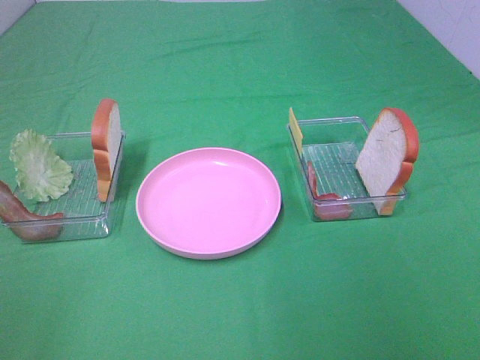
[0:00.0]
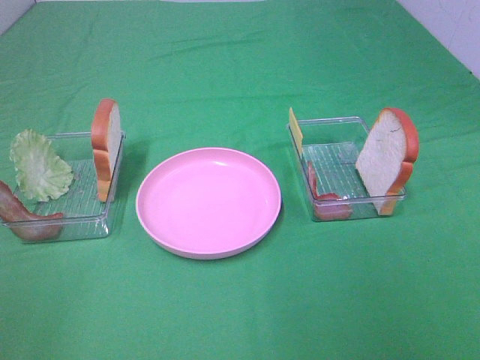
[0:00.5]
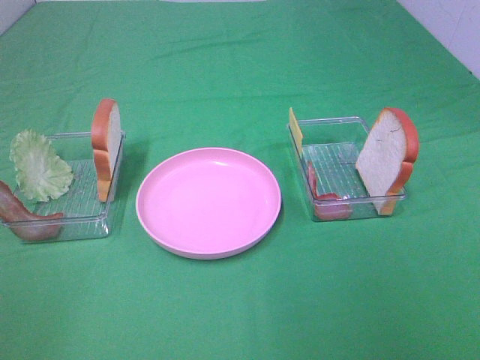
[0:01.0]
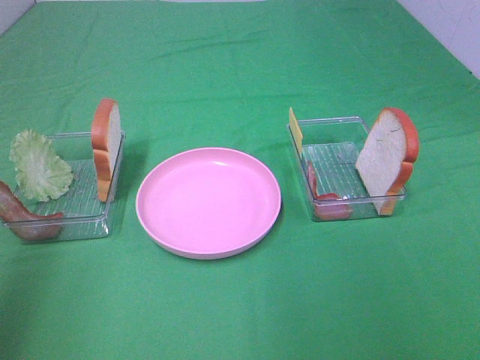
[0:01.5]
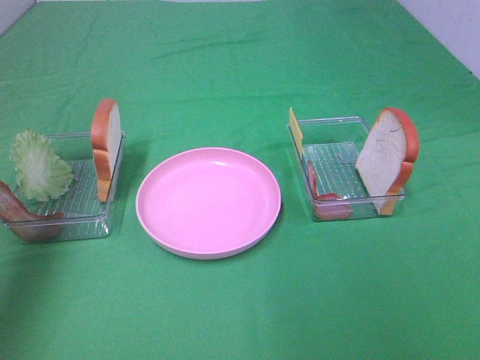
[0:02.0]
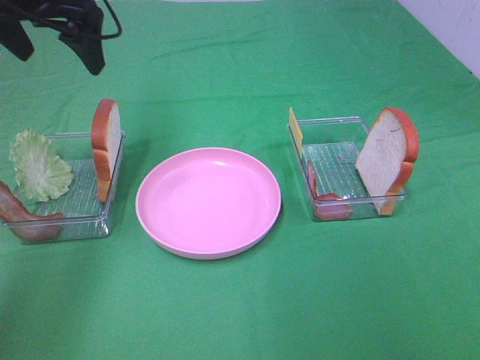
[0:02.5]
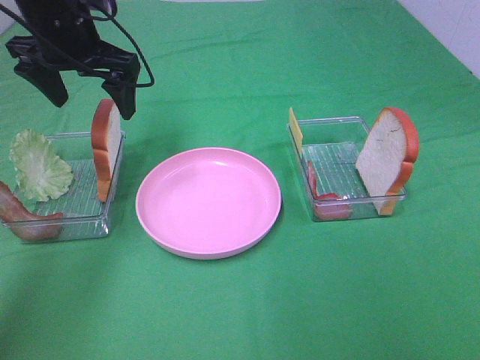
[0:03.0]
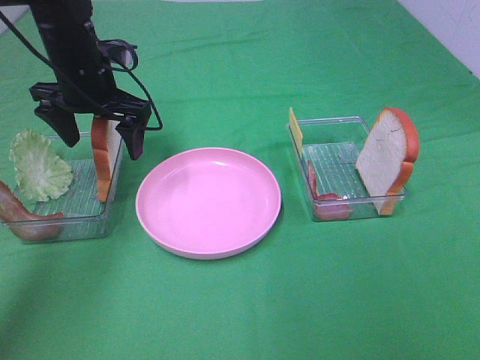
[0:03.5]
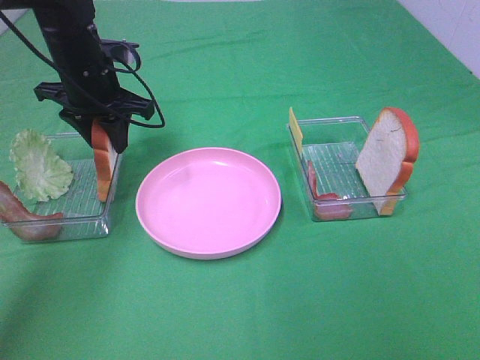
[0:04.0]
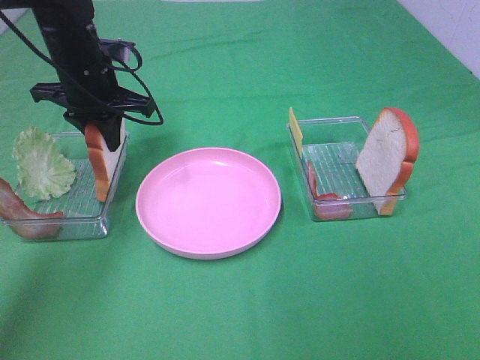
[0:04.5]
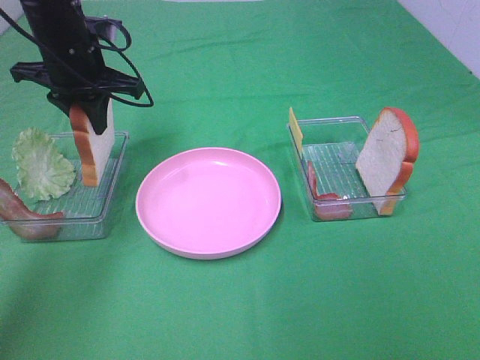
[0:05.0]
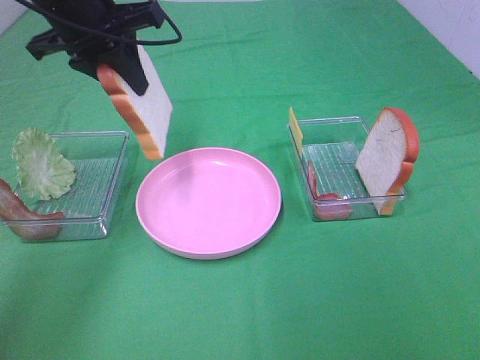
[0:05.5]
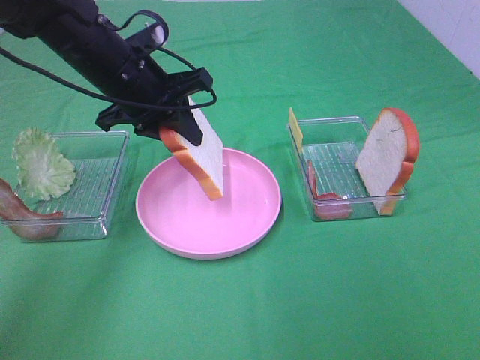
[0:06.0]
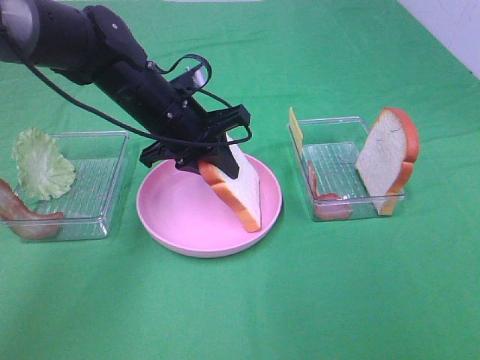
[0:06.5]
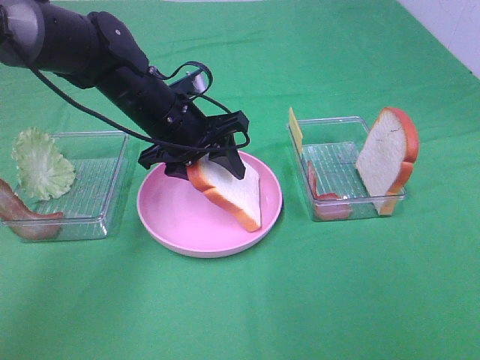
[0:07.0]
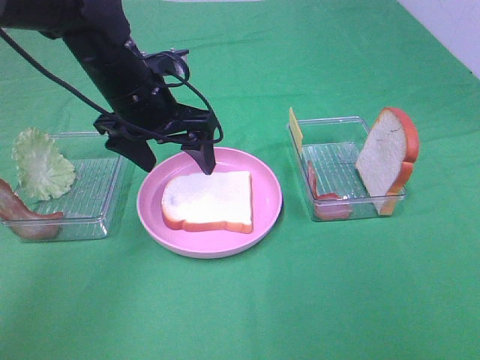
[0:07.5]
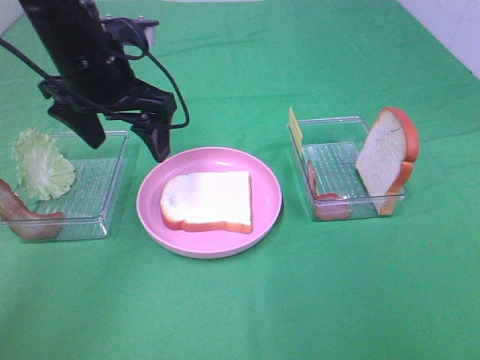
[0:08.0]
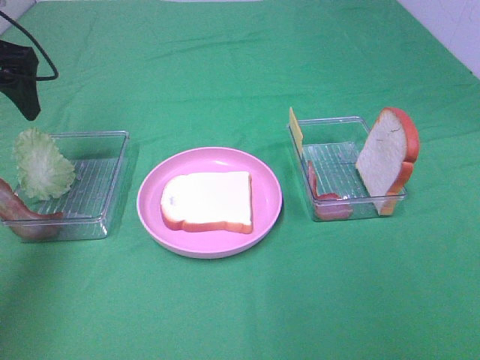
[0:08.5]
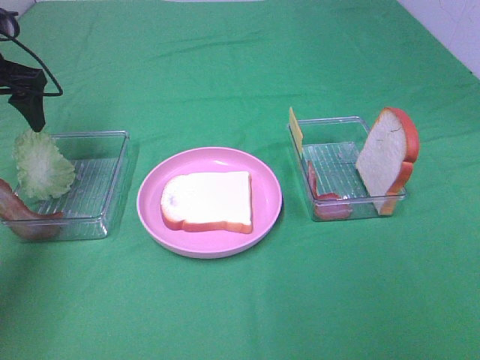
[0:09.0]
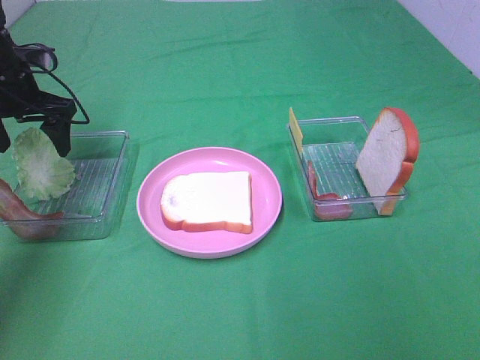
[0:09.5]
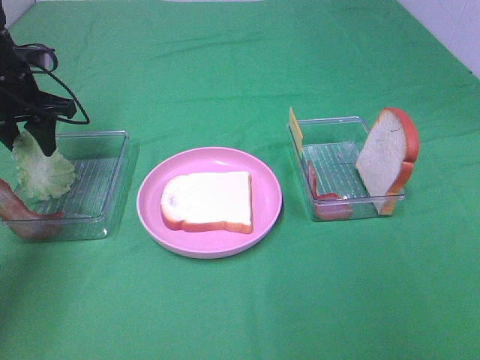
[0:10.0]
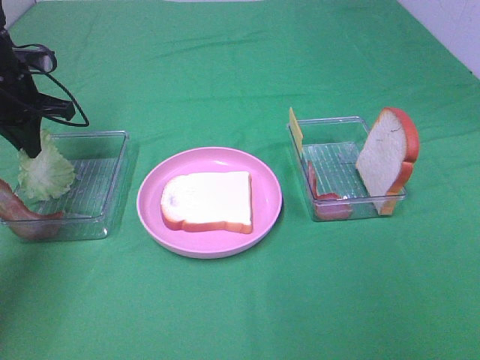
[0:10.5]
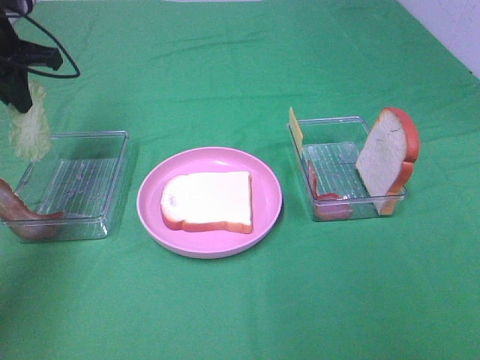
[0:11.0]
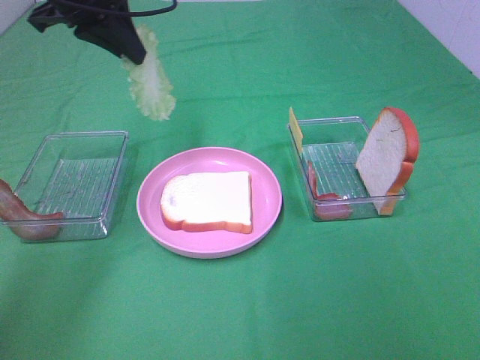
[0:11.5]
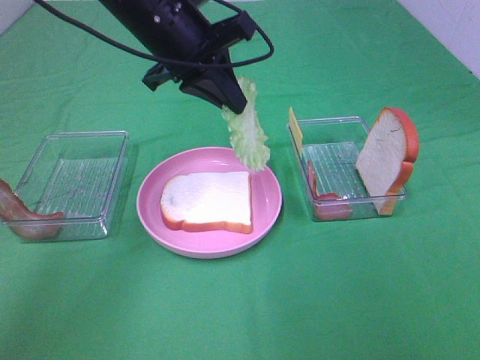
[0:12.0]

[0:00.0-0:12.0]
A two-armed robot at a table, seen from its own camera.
Task of the whole recording: Make sandwiches.
Step, 0:00.0 to 0:04.0: Left hand:grab the bread slice.
Step, 0:04.5 to 0:07.5: Left hand:place the bread slice on the plate.
Step, 0:08.0 to 0:10.5: Left hand:grab the lettuce slice.
0:00.0 to 0:02.0: The left gripper goes about 30 cm forward.
0:02.0 to 0:04.0: The left gripper goes roughly 30 cm downward, to the right and forward, and closes its fingers.
0:04.0 to 0:06.0: The left gripper goes about 10 cm to the right and backward, and reaches some 10 cm upward, then returns.
0:06.0 to 0:08.0: The left gripper moves approximately 5 cm, and opens its fingers.
0:08.0 to 0:10.0: The left gripper shifts about 20 cm to the left, forward and downward, and closes.
0:10.0 to 0:12.0: The left gripper travels to the right by some 20 cm, and closes up.

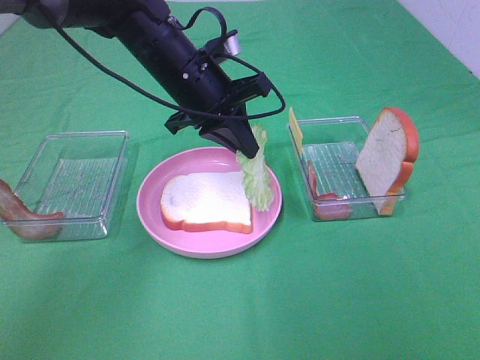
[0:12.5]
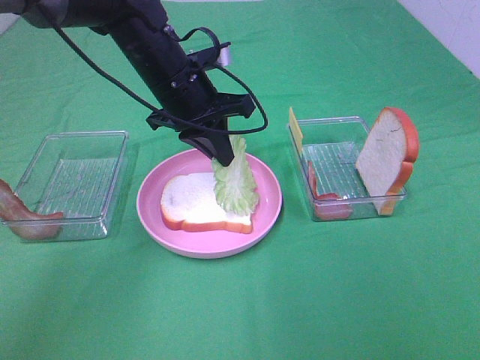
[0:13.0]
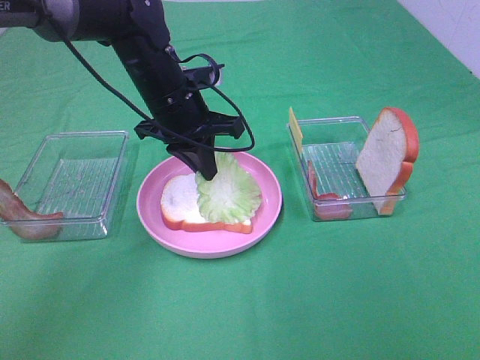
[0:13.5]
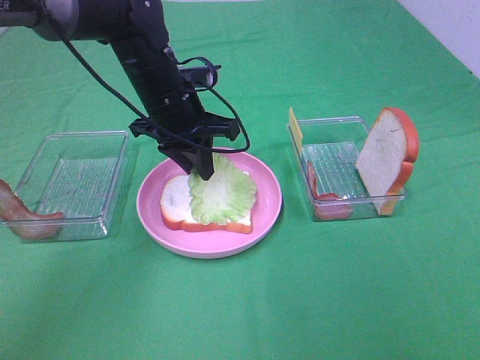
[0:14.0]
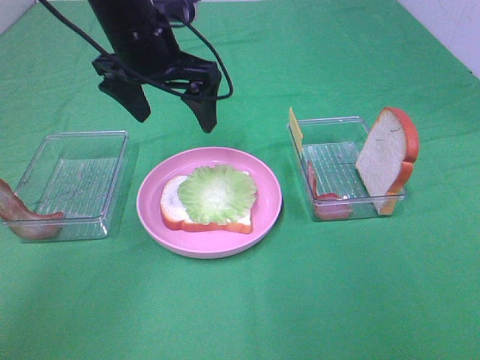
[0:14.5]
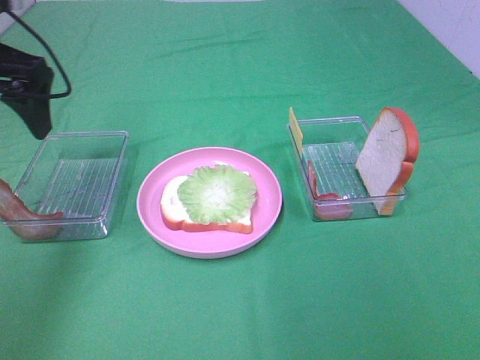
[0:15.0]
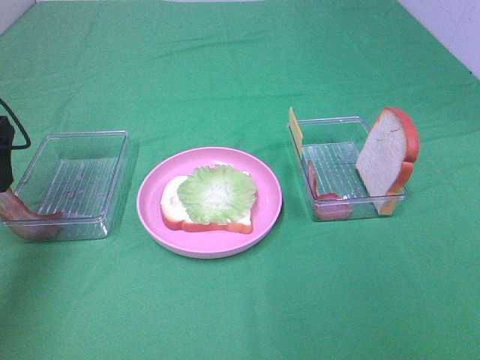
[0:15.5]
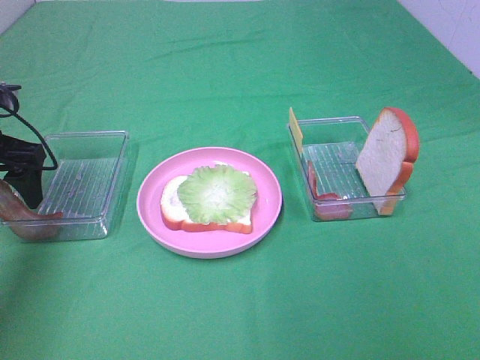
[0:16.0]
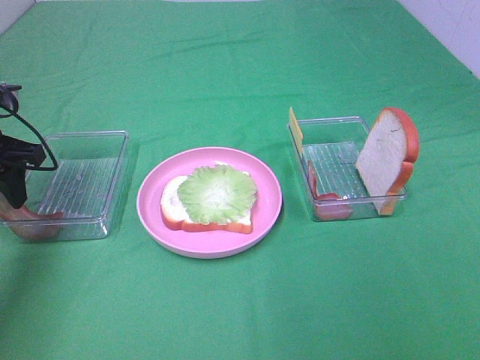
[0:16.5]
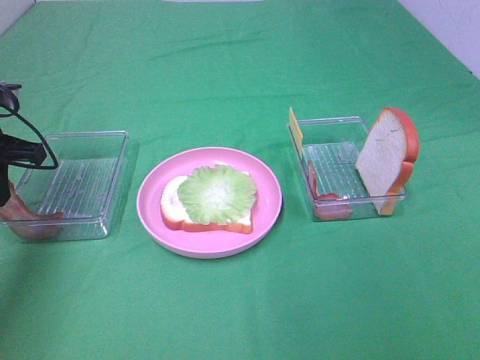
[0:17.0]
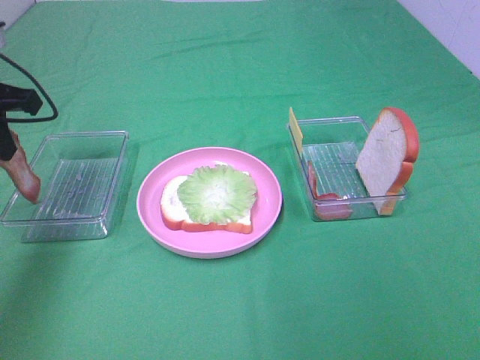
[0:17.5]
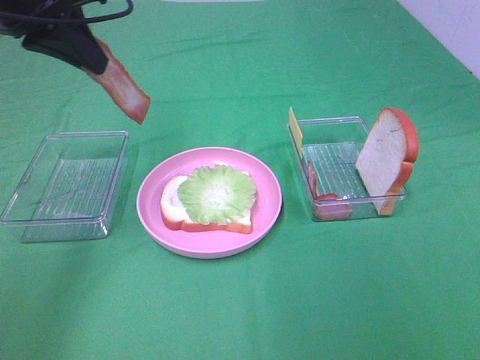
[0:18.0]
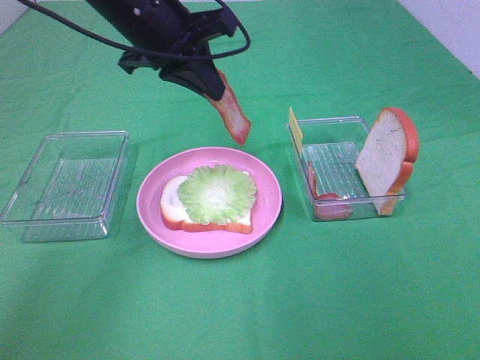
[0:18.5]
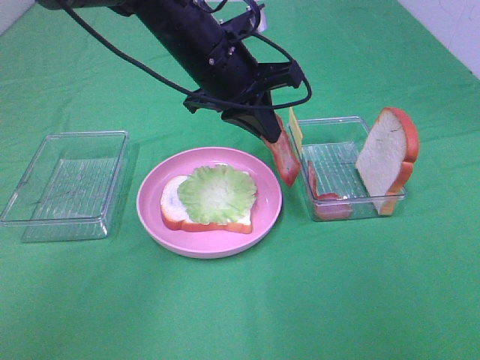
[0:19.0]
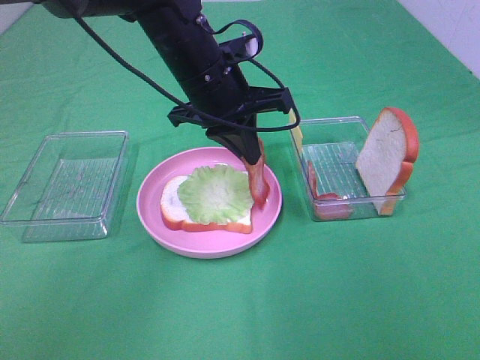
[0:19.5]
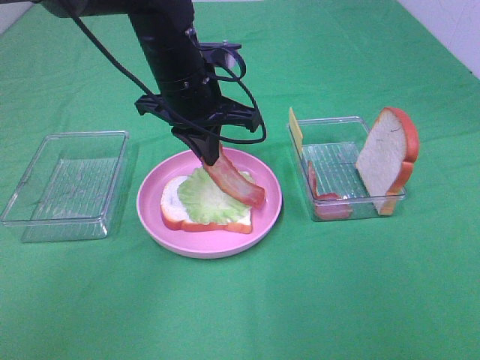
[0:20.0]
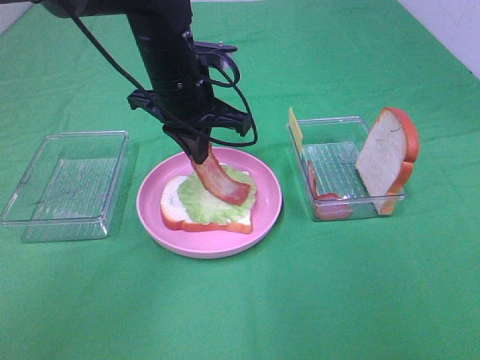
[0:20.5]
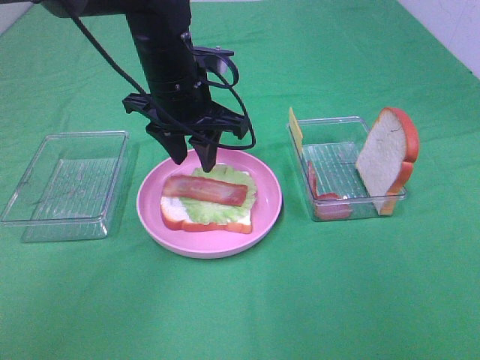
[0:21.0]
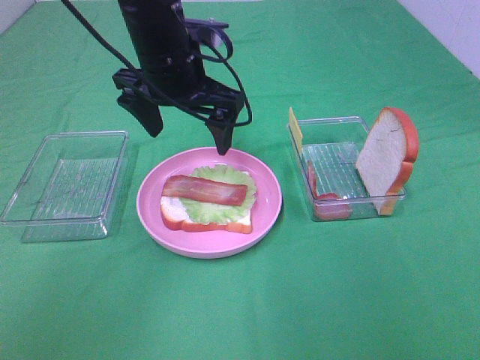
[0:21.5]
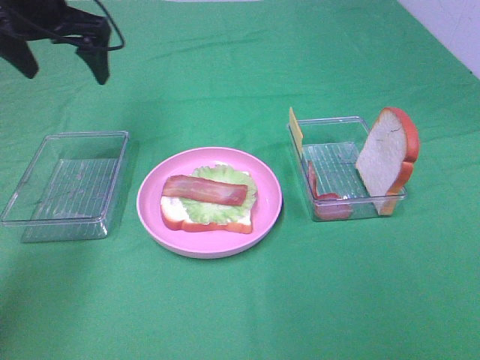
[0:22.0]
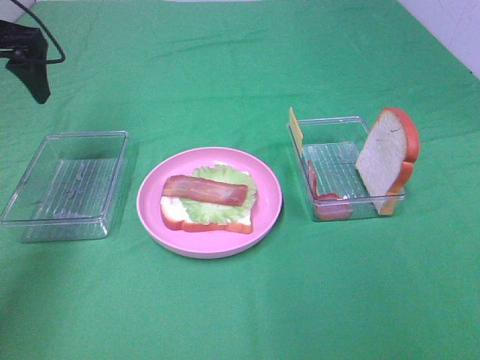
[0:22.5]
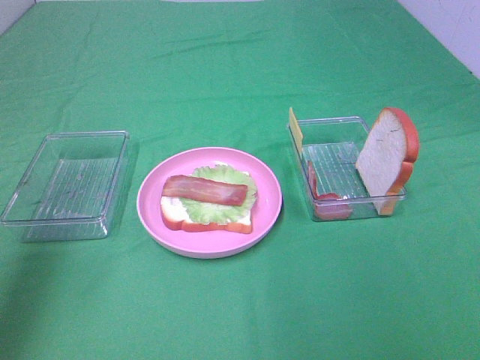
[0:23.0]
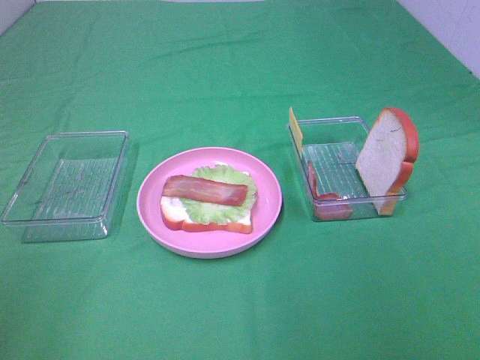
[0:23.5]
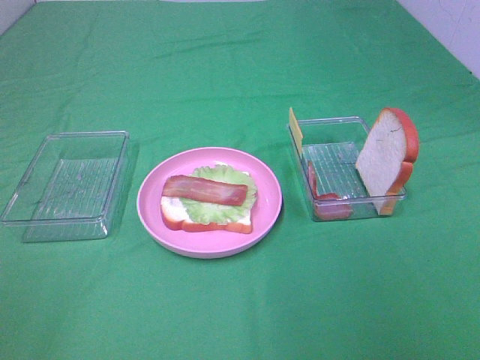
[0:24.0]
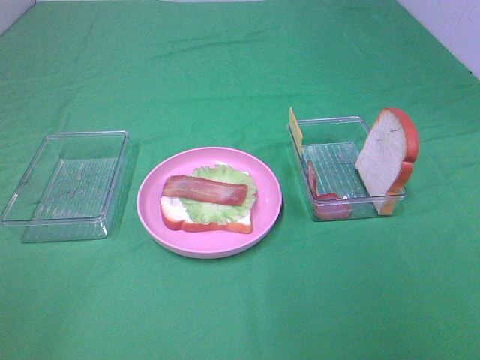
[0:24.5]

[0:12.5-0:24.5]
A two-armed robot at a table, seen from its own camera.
Task of the whole recording: Make sandwiches.
Step, 0:14.5 to 0:17.0: Left hand:grab the bacon.
Step, 0:17.5 to 0:21.0: Left hand:place bacon on lettuce slice.
0:12.5 to 0:14.5: The left gripper moves upward, approximately 5 cm, and opens.
0:14.5 to 0:16.5: The left gripper moves to the left and downward, roughly 20 cm, and closes.
0:16.5 to 0:18.5: The left gripper is displaced to the right and upward by some 25 cm, and closes.
0:18.5 to 0:20.5: The left gripper goes about 5 cm downward.
0:20.5 to 0:22.5: The left gripper goes about 25 cm to the left, and opens its fingers.
0:22.5 to 0:24.5: The left gripper moves backward, some 40 cm.

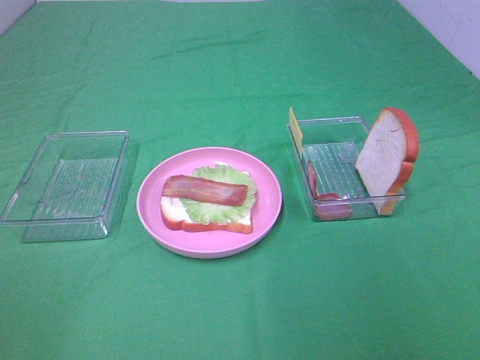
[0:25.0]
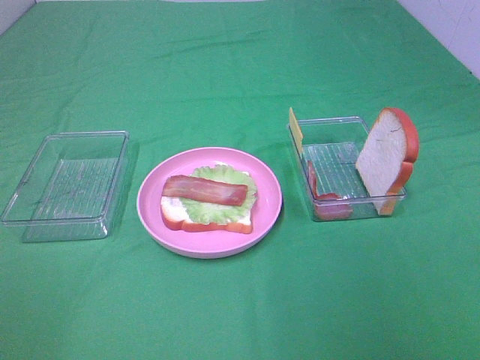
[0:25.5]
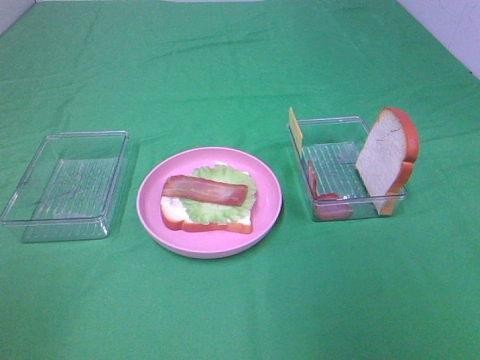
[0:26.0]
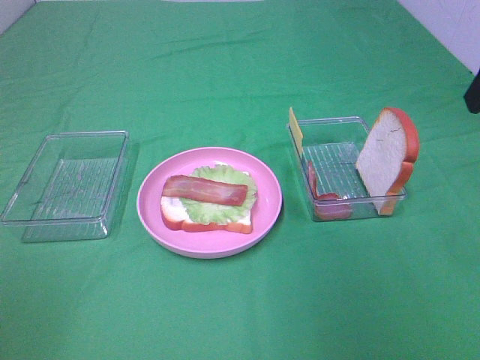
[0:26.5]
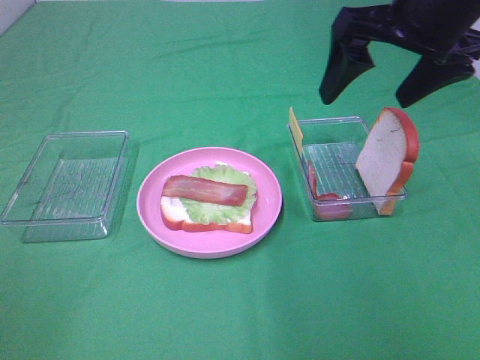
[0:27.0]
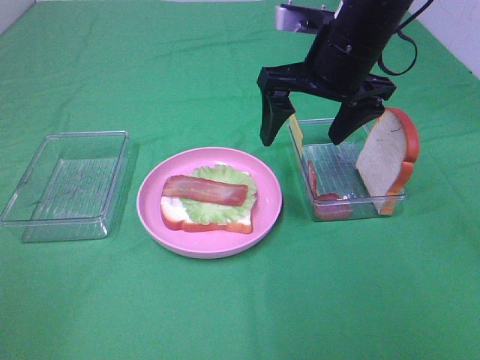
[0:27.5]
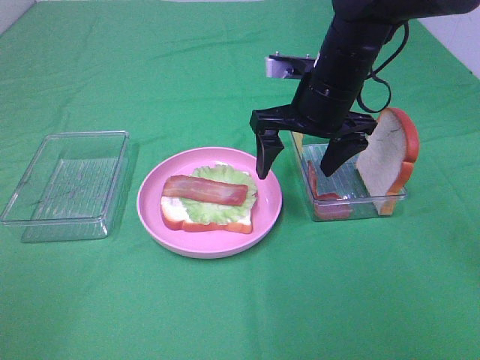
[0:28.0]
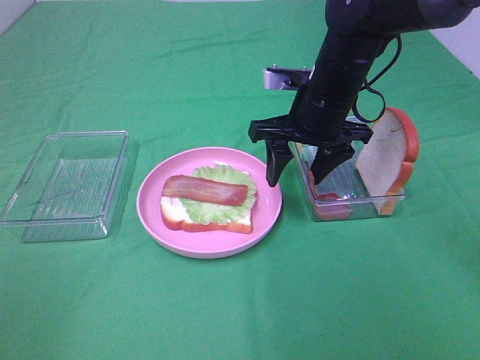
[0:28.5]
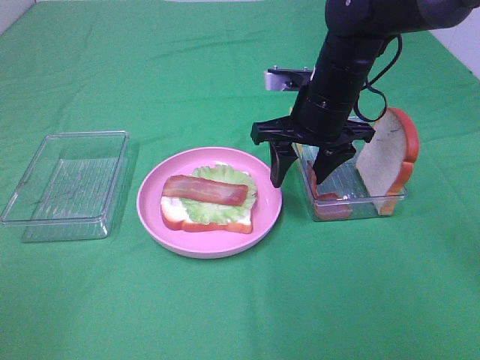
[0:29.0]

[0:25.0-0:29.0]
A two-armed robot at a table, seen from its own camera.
Task of the whole recording: Make sandwiches.
0:25.0 to 0:27.0: The right gripper goes roughly 35 cm forward and to the left.
0:27.0 to 0:29.0: The right gripper shifts roughly 15 cm downward and to the left.
